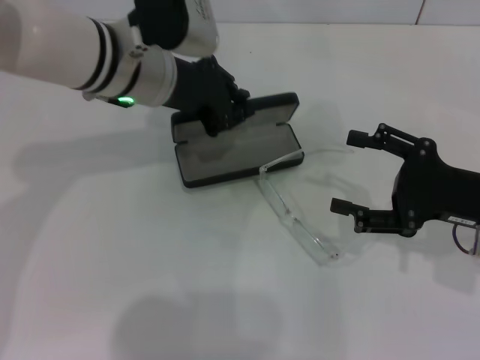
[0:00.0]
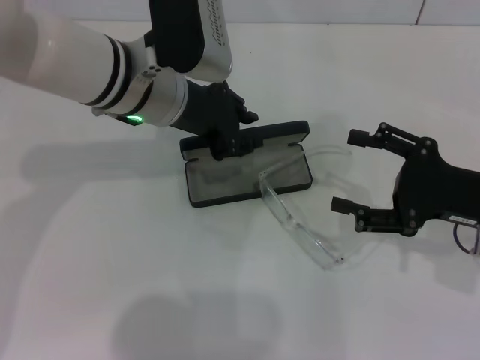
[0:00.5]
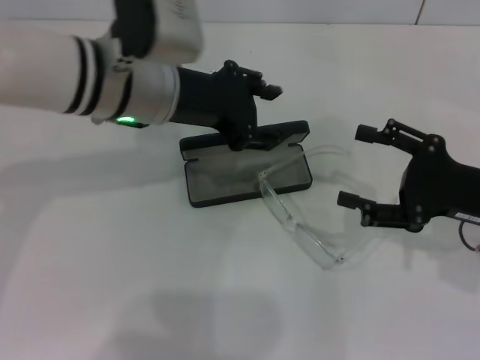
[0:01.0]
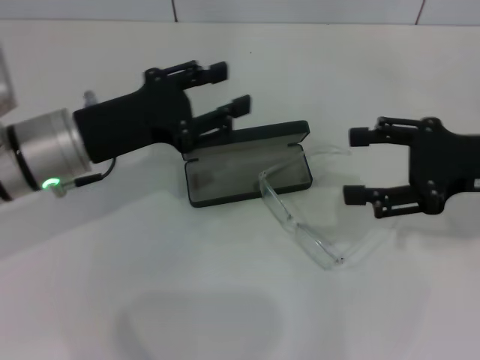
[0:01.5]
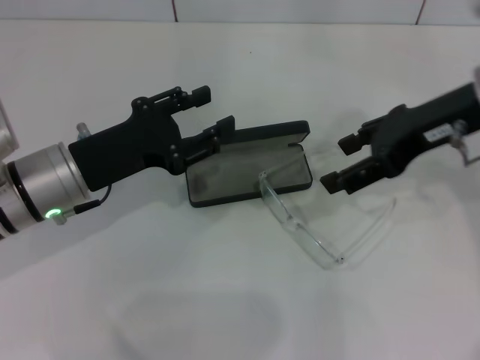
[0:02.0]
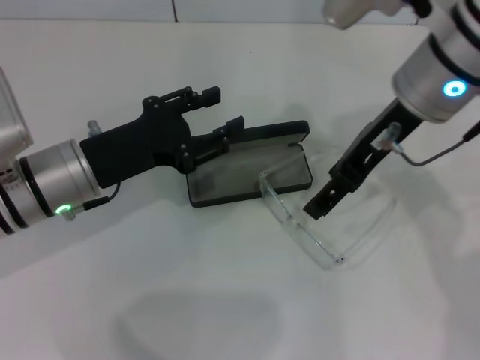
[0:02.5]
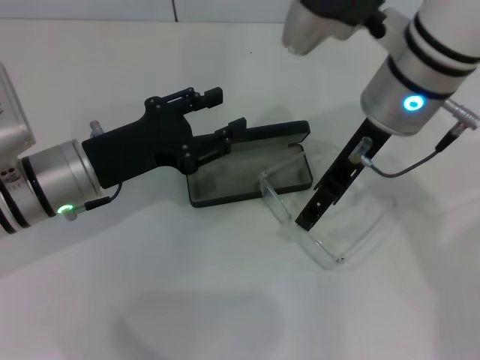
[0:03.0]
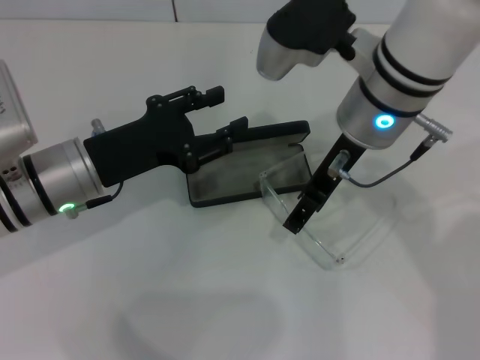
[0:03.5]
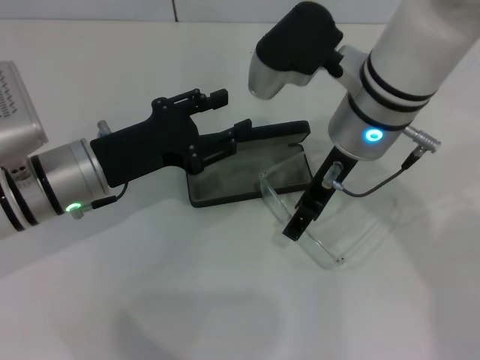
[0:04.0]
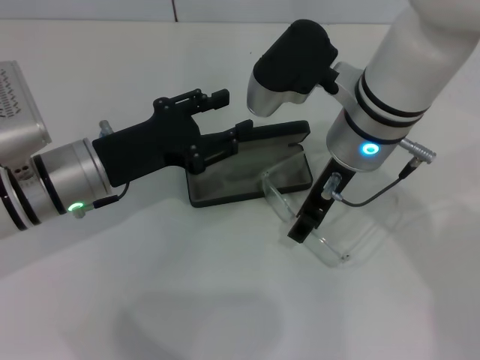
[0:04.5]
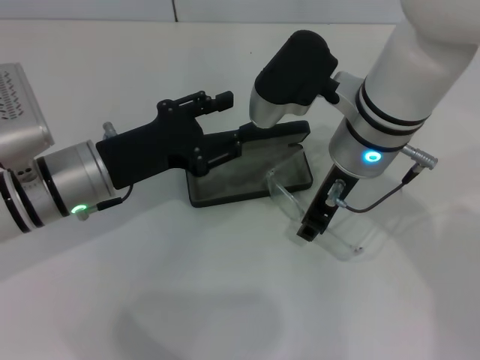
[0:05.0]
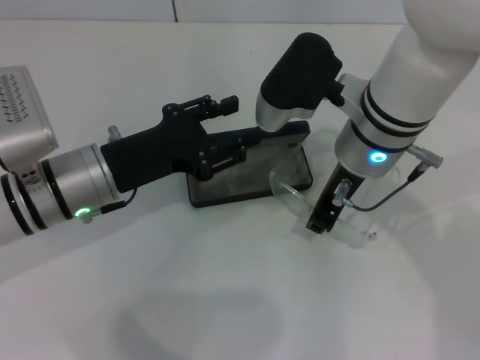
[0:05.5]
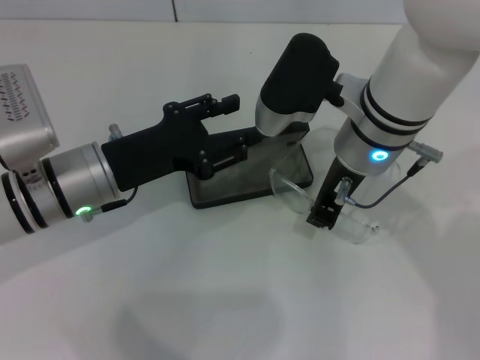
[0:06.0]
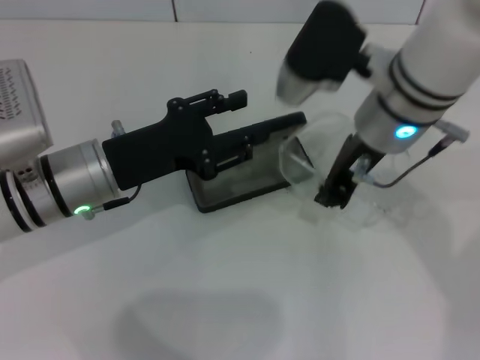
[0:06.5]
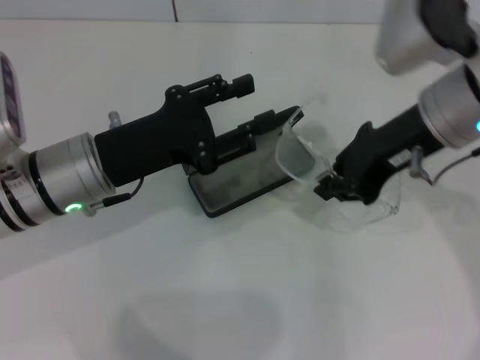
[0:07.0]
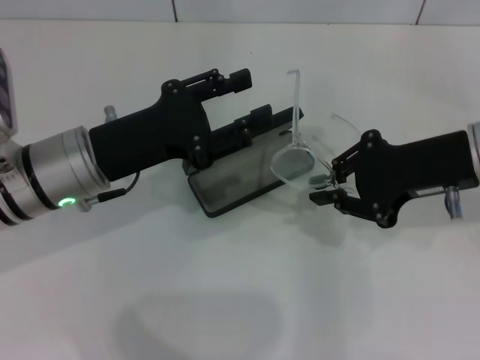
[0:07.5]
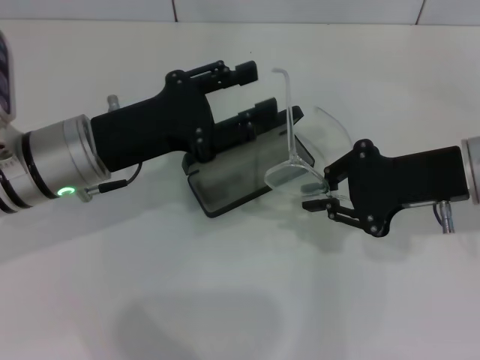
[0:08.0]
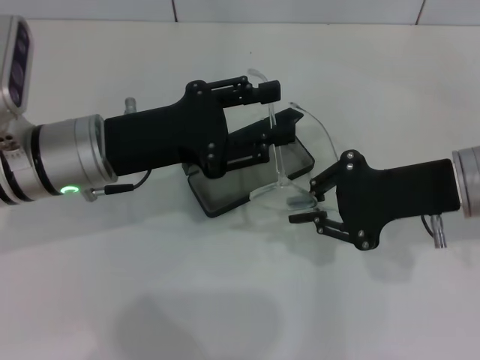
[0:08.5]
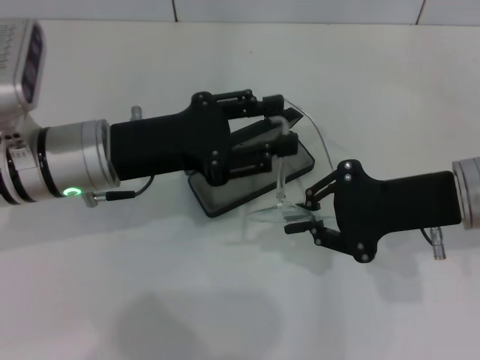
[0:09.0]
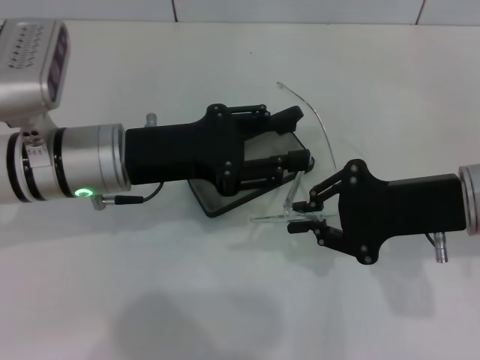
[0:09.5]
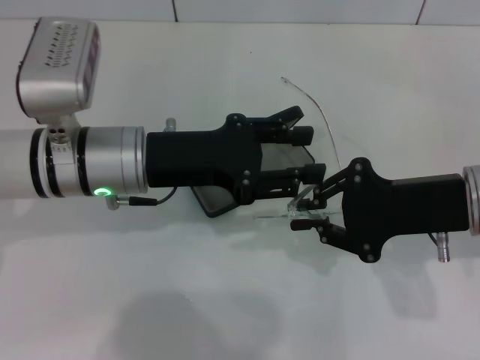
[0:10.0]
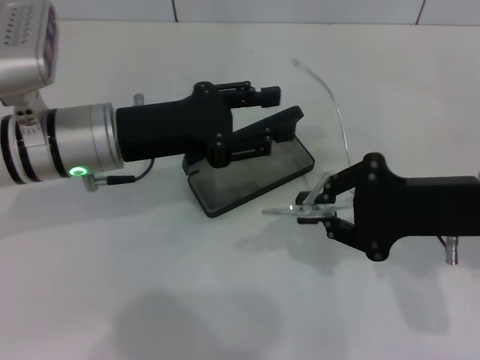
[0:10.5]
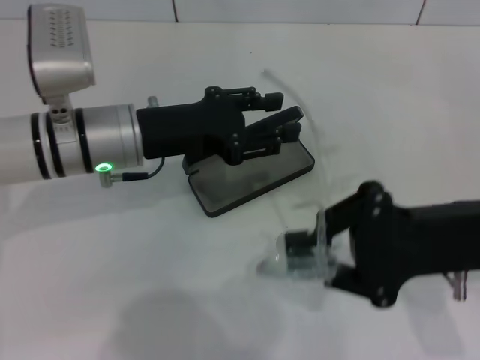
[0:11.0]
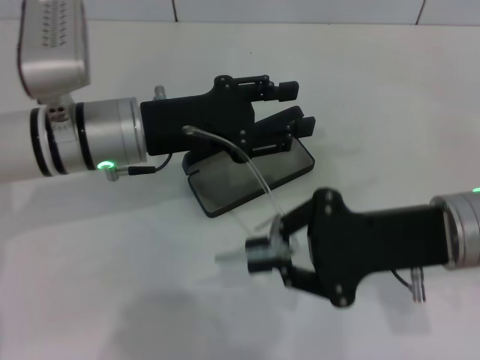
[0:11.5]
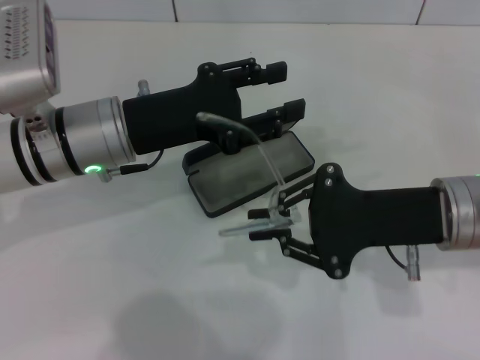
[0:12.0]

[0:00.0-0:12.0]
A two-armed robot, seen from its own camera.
Step, 0:01.0 to 0:04.5: Grab the eyeglass frame with your right hand.
0:00.0 to 0:02.0: The right gripper travels upward, forward and to the left by some 15 cm. The left gripper moves backward, to the left and downward, some 15 cm, and opens up.
0:02.0 to 0:04.0: The right gripper moves to the left, some 15 cm.
0:04.0 to 0:06.0: The right gripper closes up.
0:06.0 to 0:08.0: The right gripper is displaced to the right by roughly 15 cm.

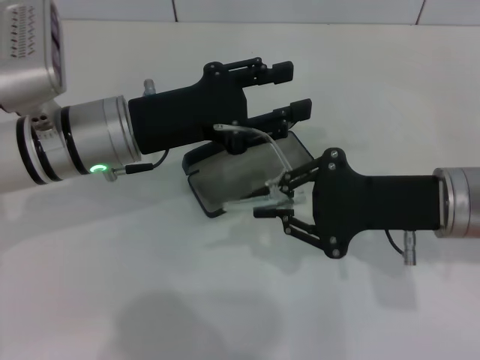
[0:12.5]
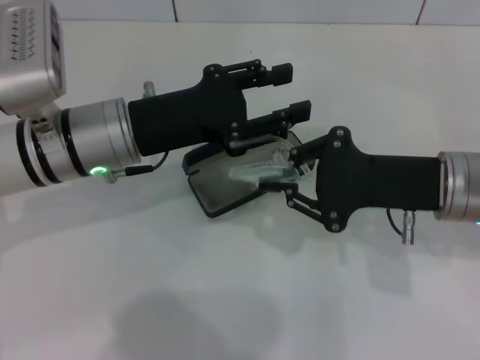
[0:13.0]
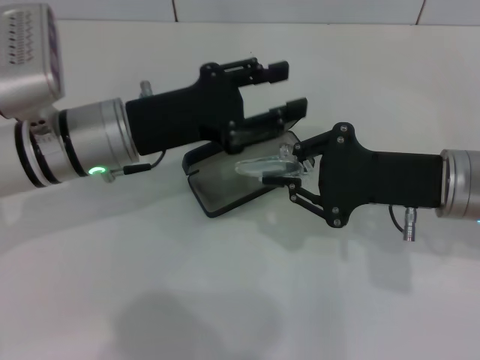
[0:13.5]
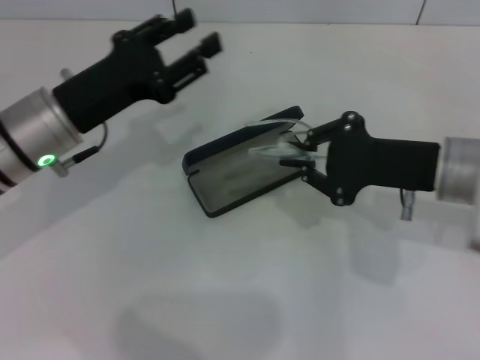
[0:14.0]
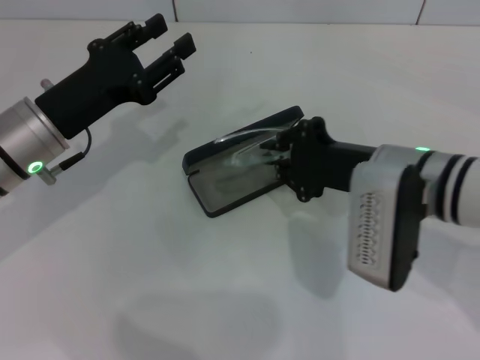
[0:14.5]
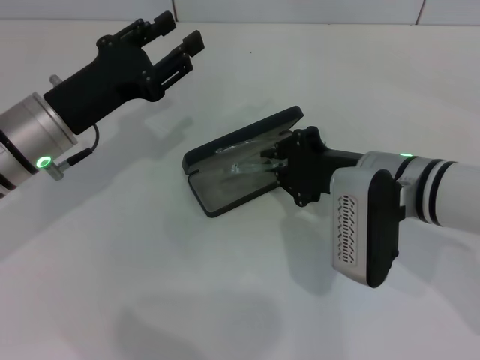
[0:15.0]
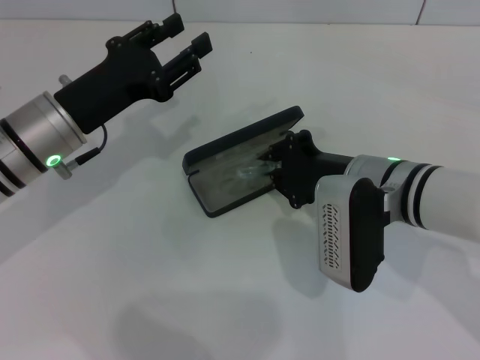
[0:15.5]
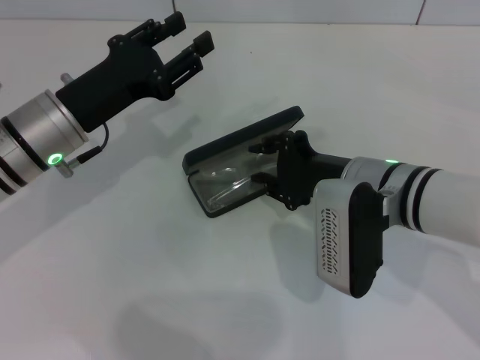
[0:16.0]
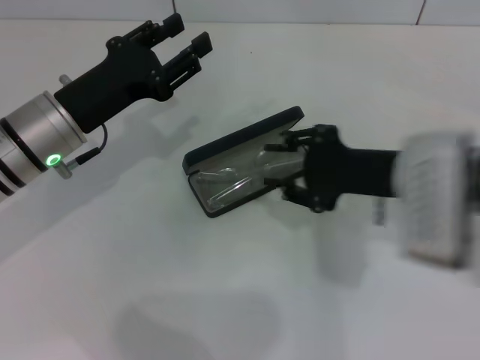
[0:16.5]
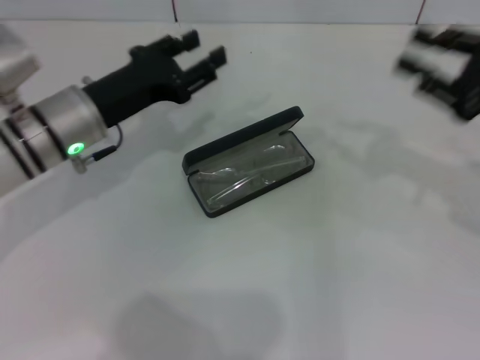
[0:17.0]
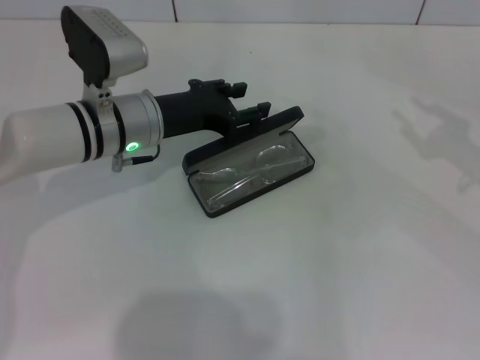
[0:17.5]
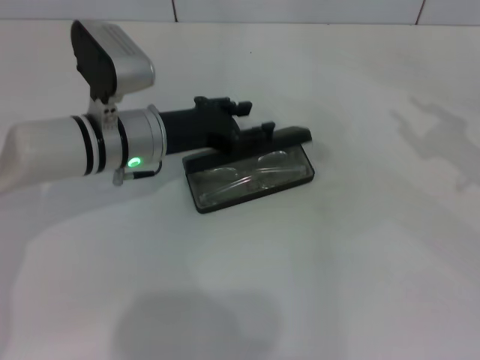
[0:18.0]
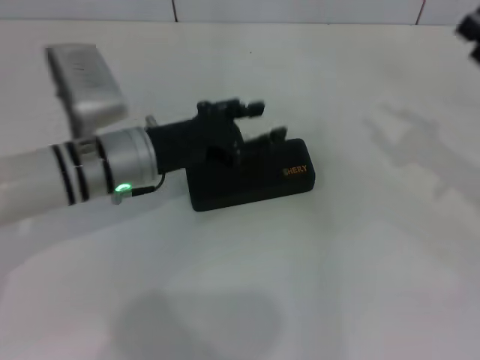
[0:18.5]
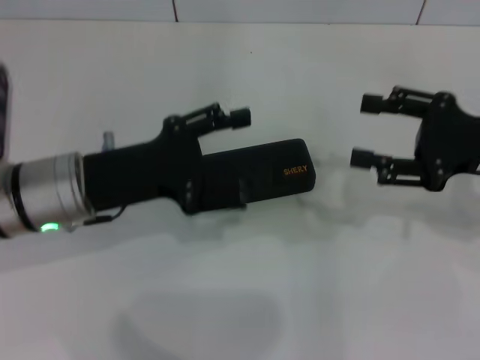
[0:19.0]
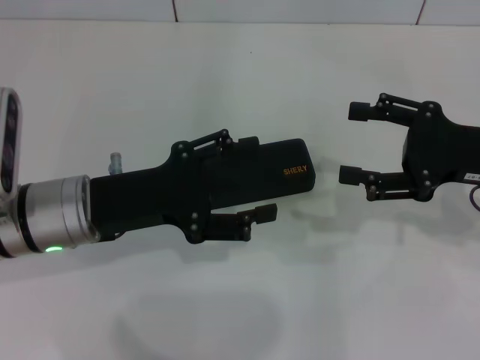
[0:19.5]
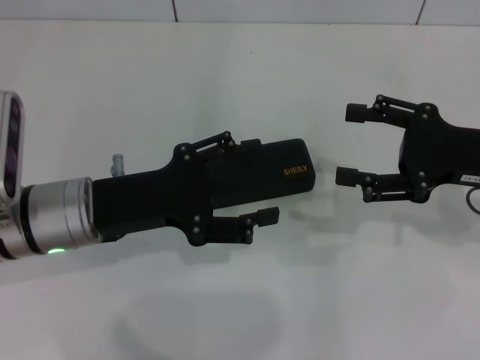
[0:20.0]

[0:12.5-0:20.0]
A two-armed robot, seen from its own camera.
Step, 0:14.0 to 0:15.5: Put the glasses into the case with your right hand.
Step, 0:16.5 to 0:18.0: Close the glasses case with your left hand.
0:12.5 to 0:14.5: The left gripper shifts approximately 5 cm to the left. The right gripper moves some 5 cm.
0:14.5 to 0:16.5: The right gripper opens.
0:16.5 to 0:18.0: The right gripper moves to the right, about 20 cm, while the left gripper goes roughly 5 cm to the right.
0:18.0 to 0:20.0: The left gripper moves backward, some 10 cm, and opens up, while the right gripper moves to the left, roughly 10 cm, and opens.

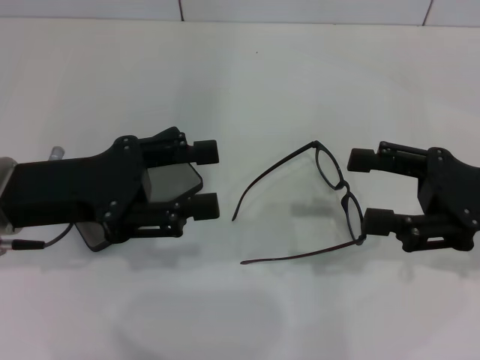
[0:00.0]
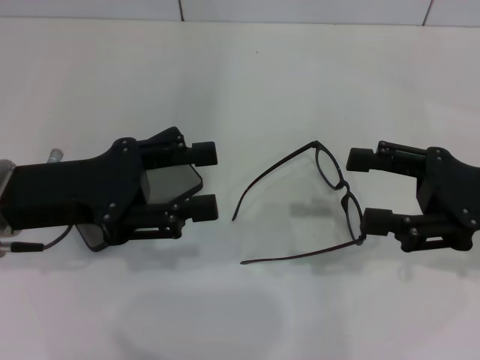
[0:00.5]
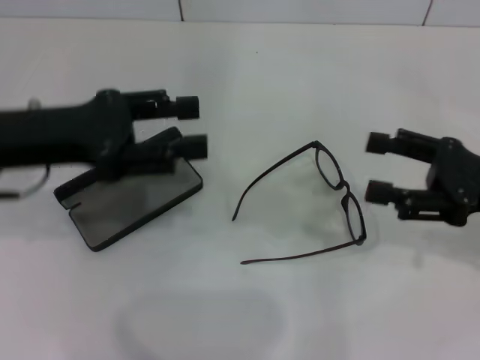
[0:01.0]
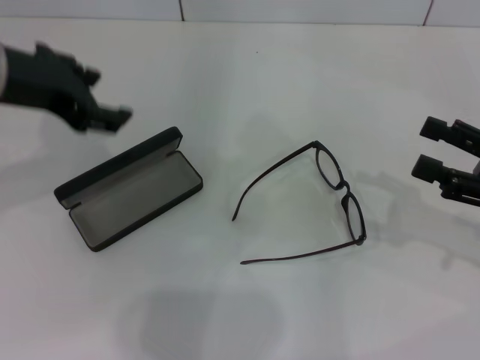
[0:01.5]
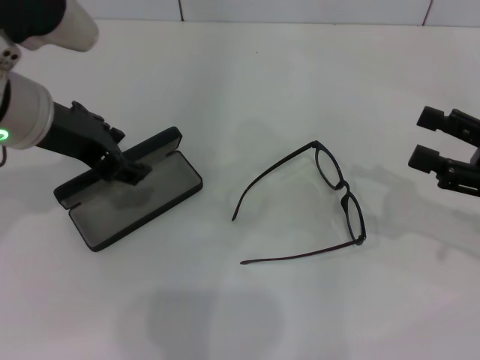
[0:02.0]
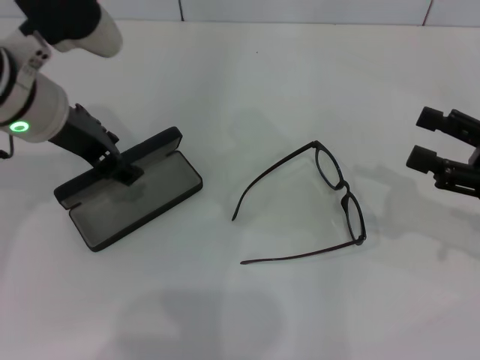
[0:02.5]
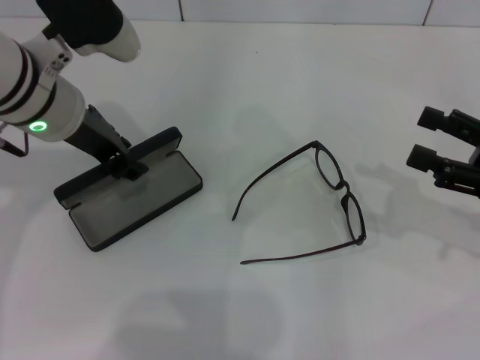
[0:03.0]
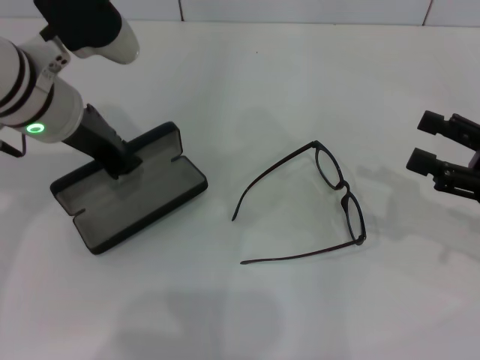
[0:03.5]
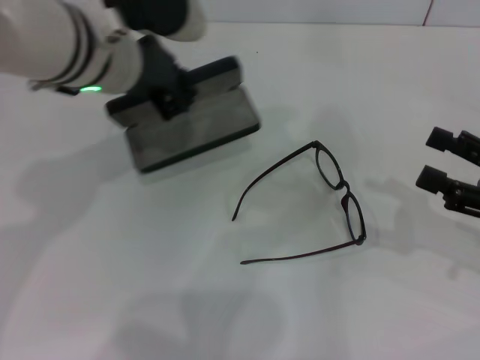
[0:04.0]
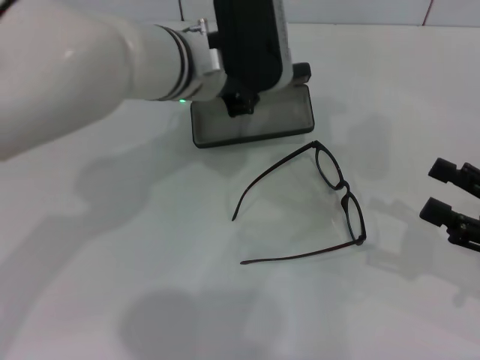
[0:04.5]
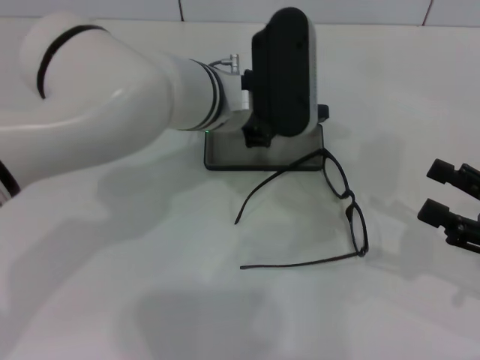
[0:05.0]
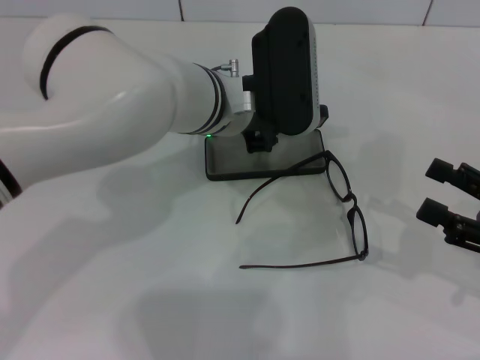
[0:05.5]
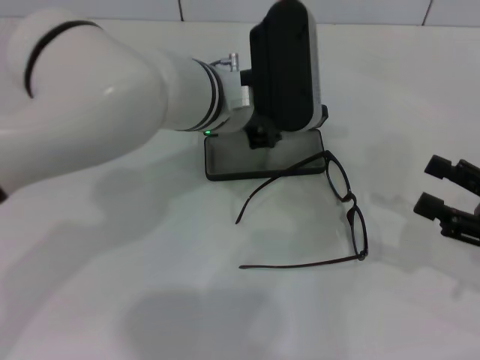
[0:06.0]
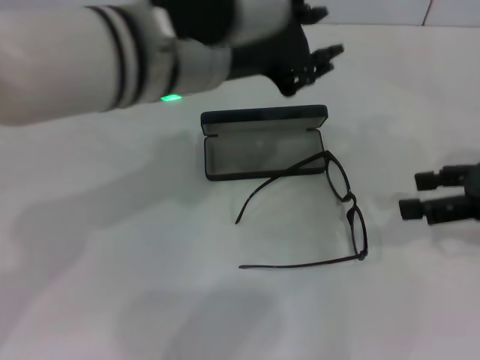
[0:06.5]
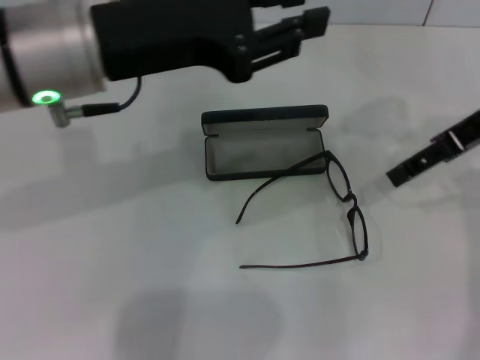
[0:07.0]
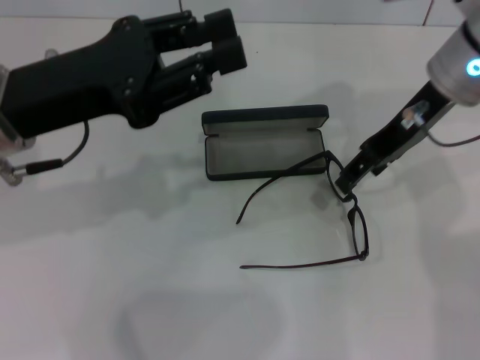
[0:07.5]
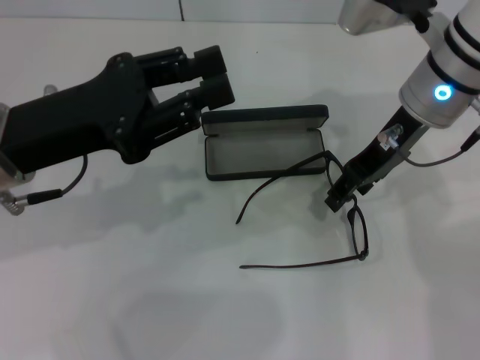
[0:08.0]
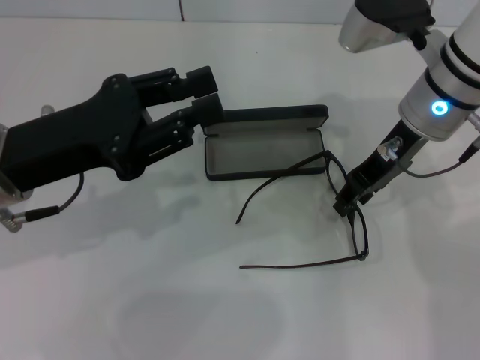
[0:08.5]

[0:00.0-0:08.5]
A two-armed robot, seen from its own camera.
Step, 0:00.0 to 0:03.0: Grab the glasses case with your left hand.
Step, 0:03.5 to 0:06.0: Place the glasses case in the center of the table with your left hand.
0:00.0 to 0:02.0: The left gripper moves upward and forward, some 10 cm; the right gripper changes place by some 5 cm.
0:02.0 to 0:04.0: The left gripper shifts about 5 cm to the right, and closes its fingers.
0:04.0 to 0:06.5: The left gripper moves backward and to the right, roughly 10 cm, and travels downward and back again, about 5 cm each way, while the right gripper goes about 5 cm upward.
0:06.5 to 0:08.5: The left gripper moves to the left and downward, some 15 cm. The right gripper moves to the left and forward, roughly 20 cm.
